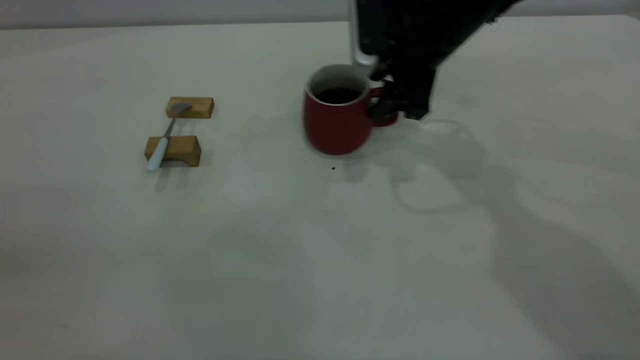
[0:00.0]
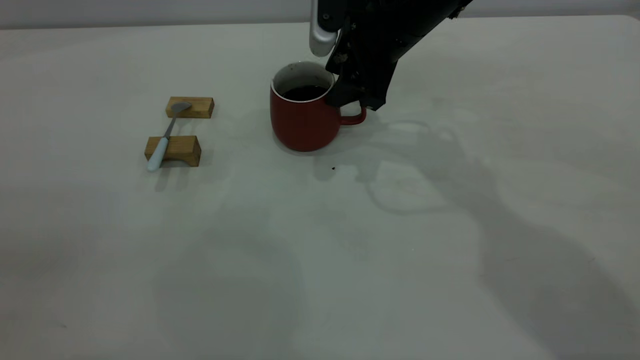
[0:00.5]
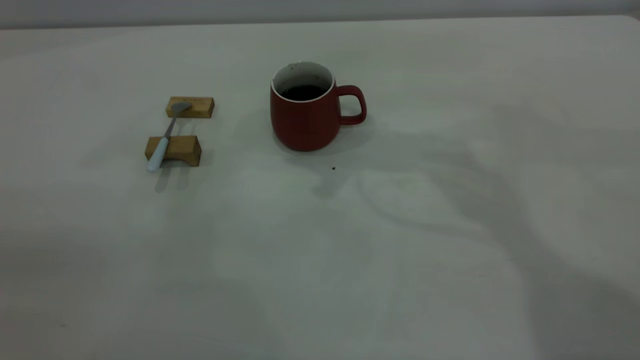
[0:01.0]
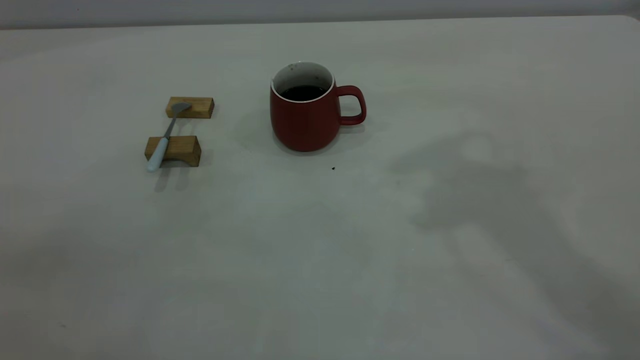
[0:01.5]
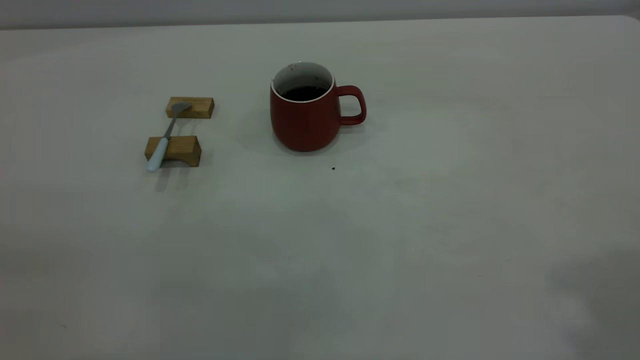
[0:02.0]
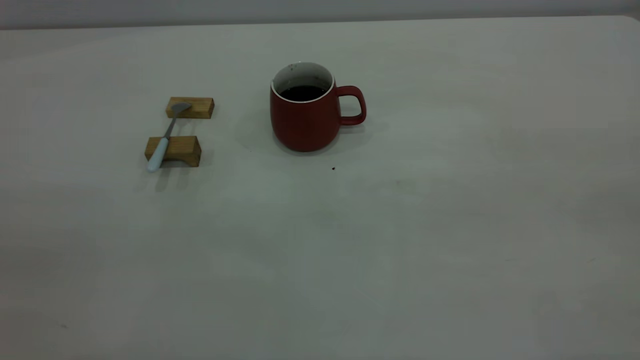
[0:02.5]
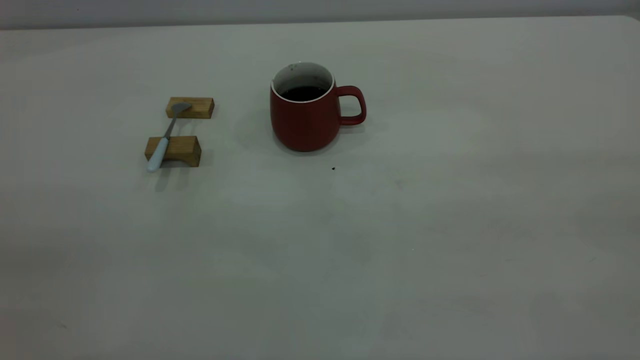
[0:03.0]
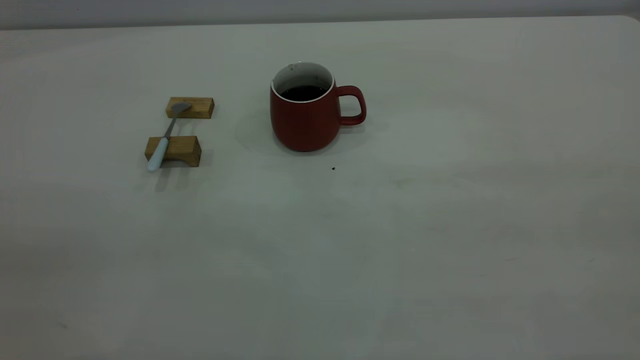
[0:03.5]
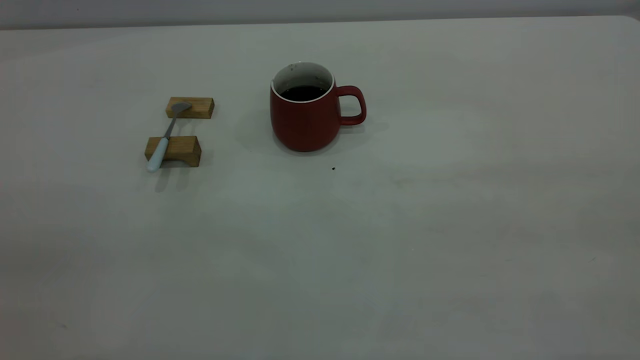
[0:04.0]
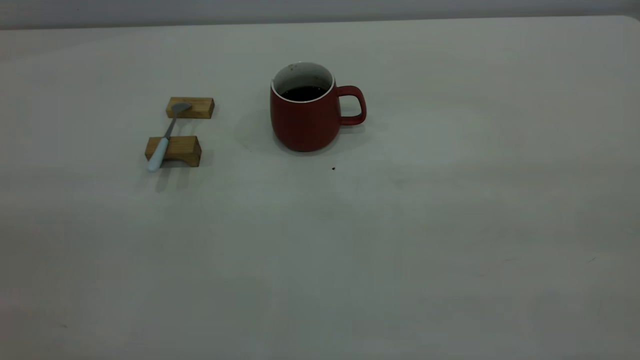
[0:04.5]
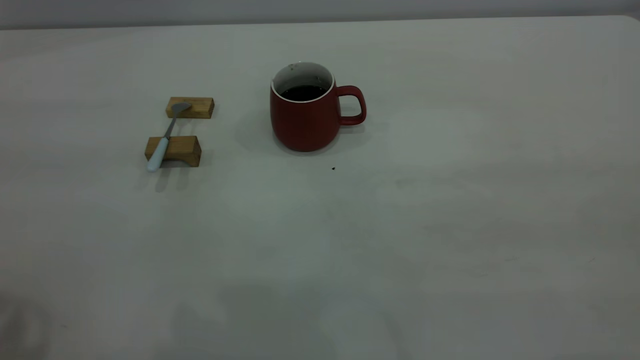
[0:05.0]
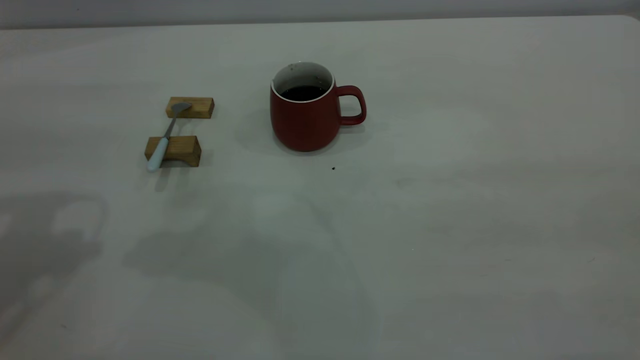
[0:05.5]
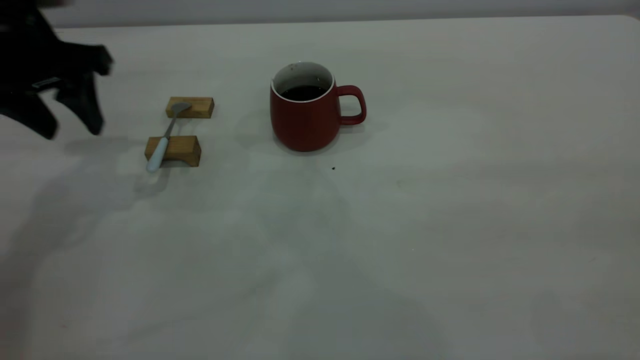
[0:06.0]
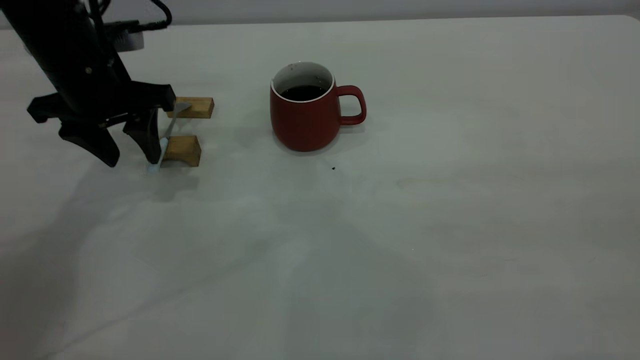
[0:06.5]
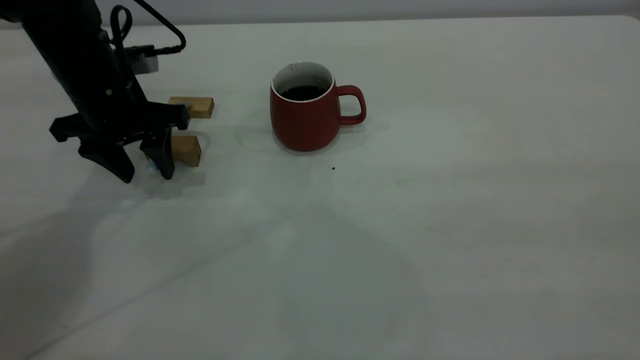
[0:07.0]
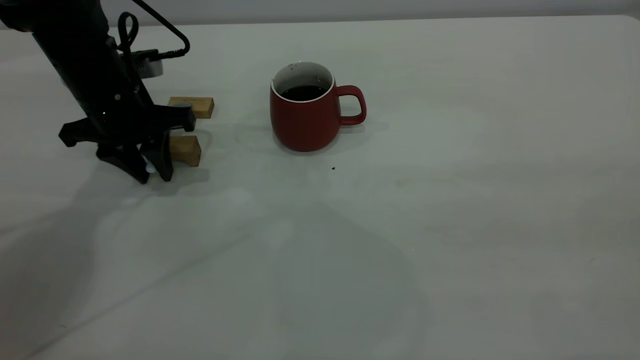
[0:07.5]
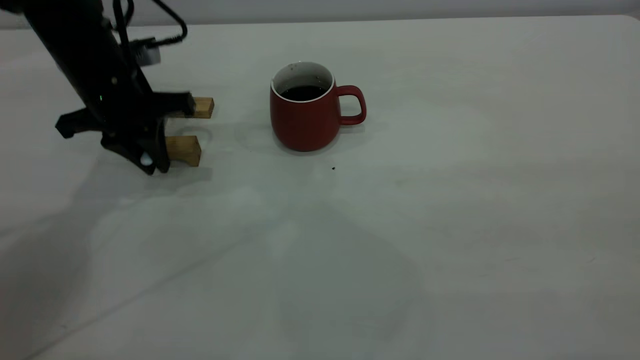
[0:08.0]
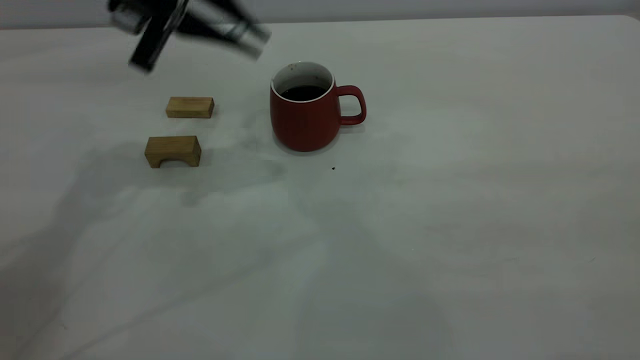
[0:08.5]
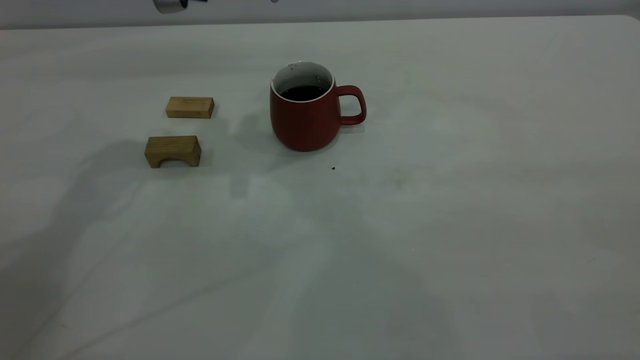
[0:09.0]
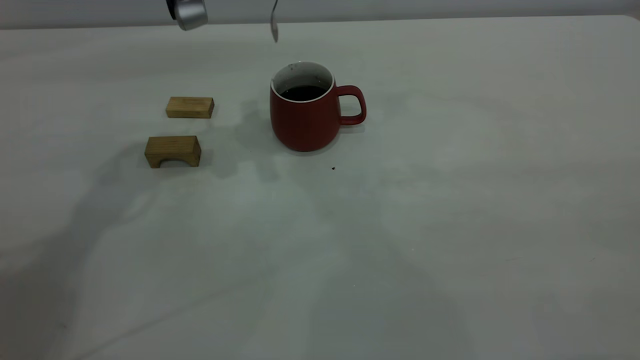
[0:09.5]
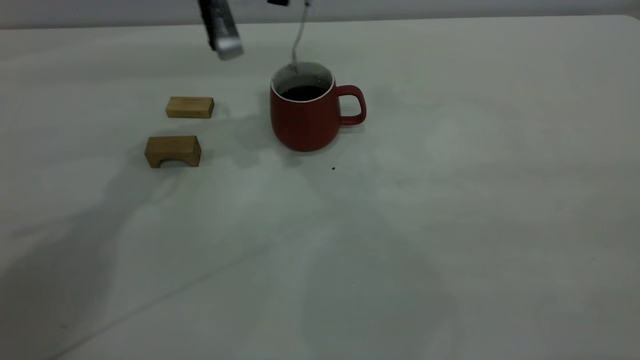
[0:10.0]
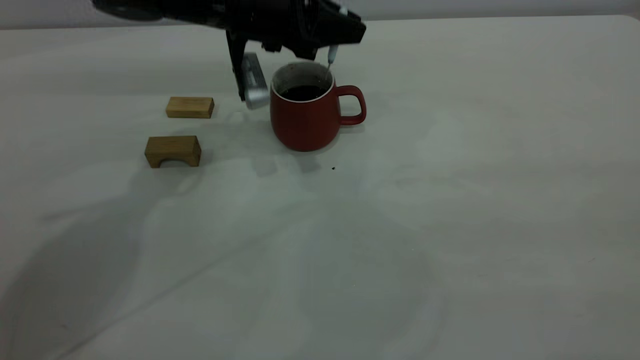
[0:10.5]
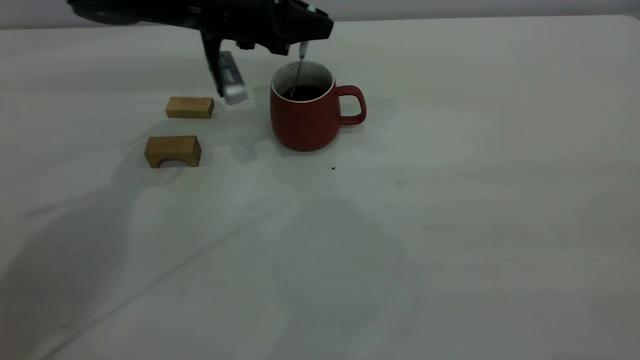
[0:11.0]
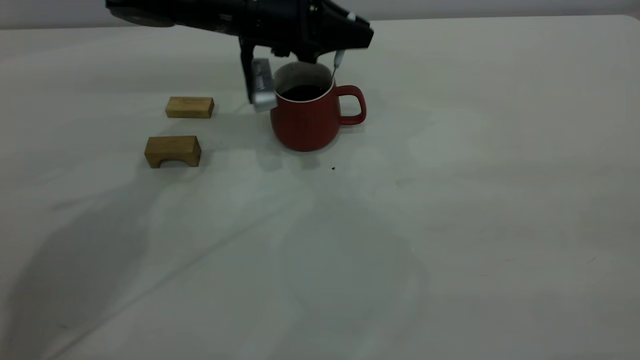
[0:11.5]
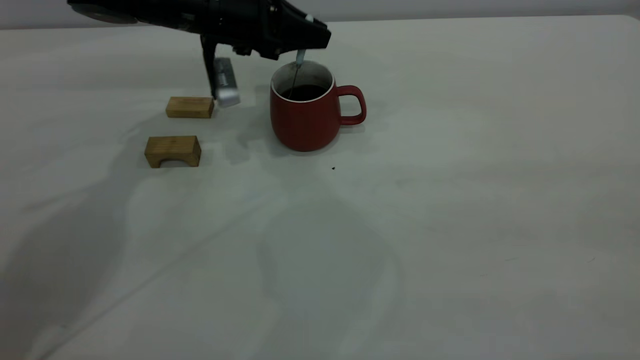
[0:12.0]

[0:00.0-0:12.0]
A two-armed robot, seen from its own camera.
Step, 0:01.0 to 0:08.0: Pick up the spoon.
0:00.0 to 0:02.0: The right gripper heads upward, backward and to the right, covering roughly 50 cm, and closes its fingers.
0:04.0 to 0:06.0: The left gripper travels forward and downward by about 40 cm.
0:06.0 to 0:08.0: The left gripper moves downward, some 5 cm, and closes its fingers.
0:08.0 to 0:10.0: The left gripper heads to the right and upward, covering some 15 cm.
0:10.0 to 0:12.0: The left gripper travels downward by roughly 5 cm.

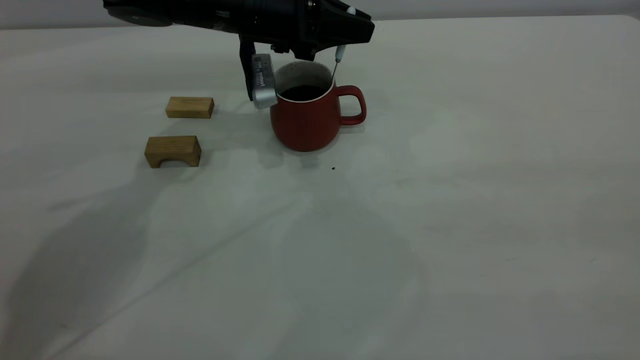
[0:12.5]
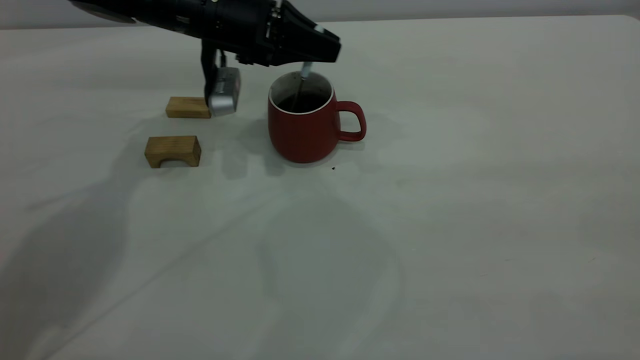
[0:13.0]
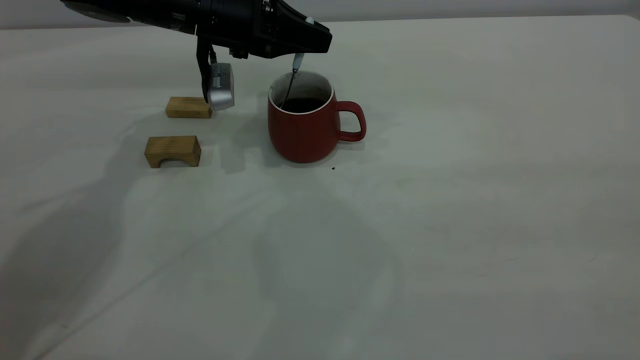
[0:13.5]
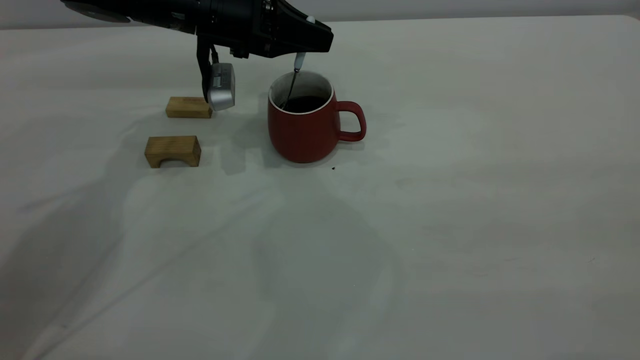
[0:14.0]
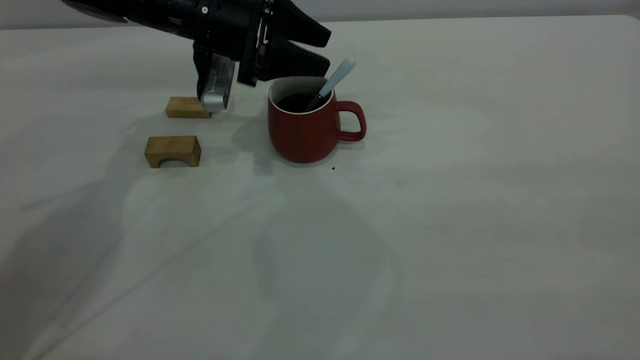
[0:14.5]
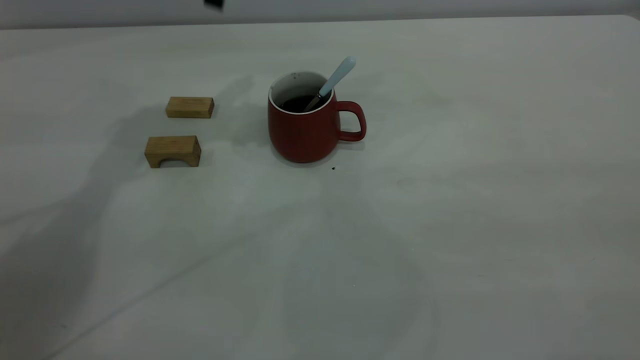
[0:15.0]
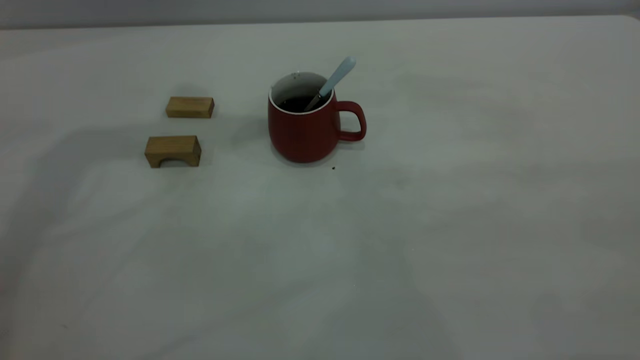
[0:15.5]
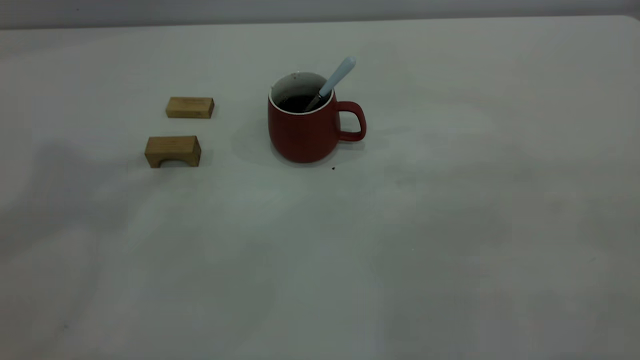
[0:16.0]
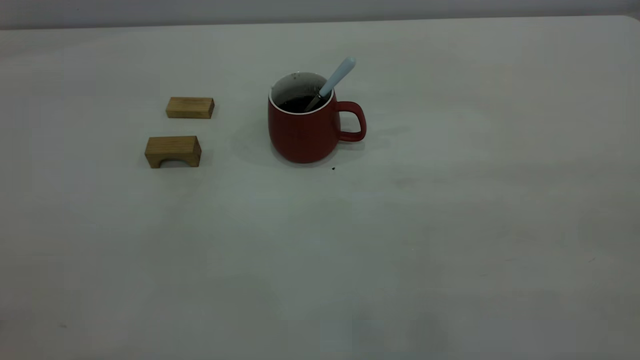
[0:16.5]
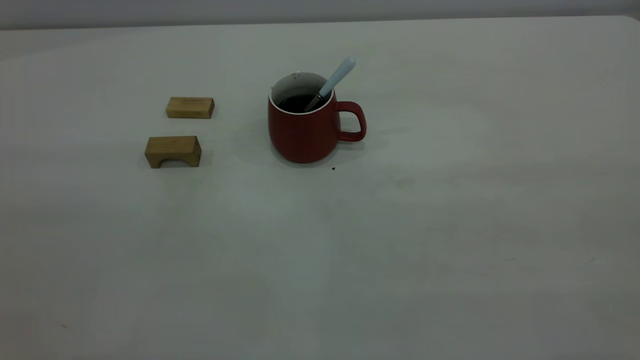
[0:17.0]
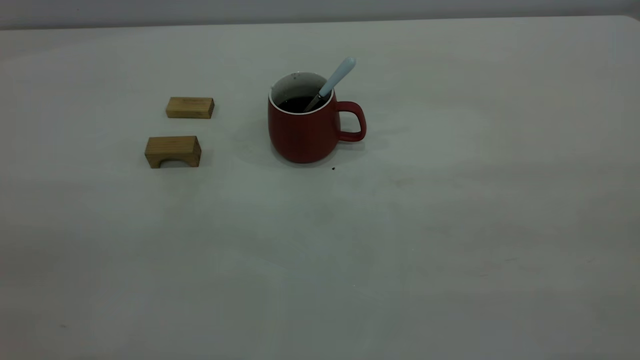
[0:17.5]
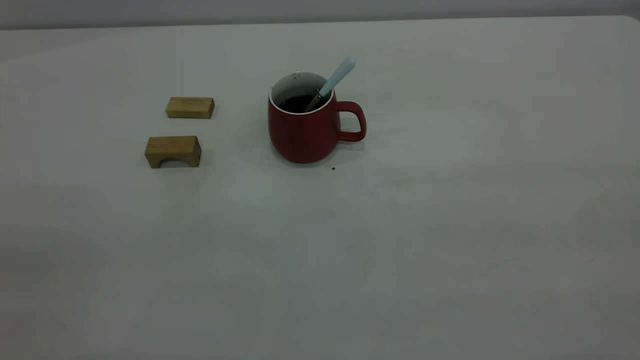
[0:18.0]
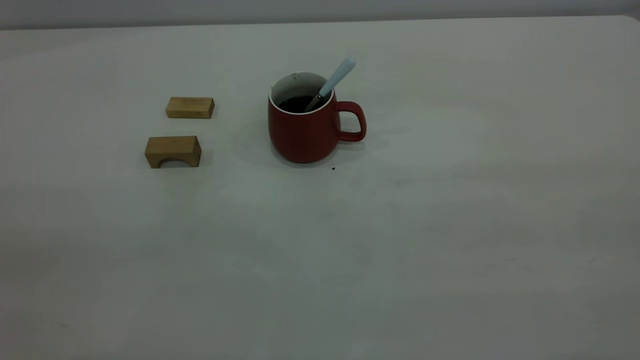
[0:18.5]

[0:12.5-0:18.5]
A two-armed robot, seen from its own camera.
Step, 0:12.5 to 0:14.5: Stir the coffee in the cup.
0:12.5 to 0:14.5: The left gripper opens its fingers.
0:14.5 to 0:16.5: The left gripper travels upward and backward by roughly 60 cm.
